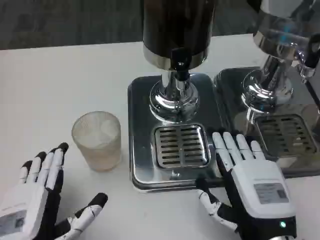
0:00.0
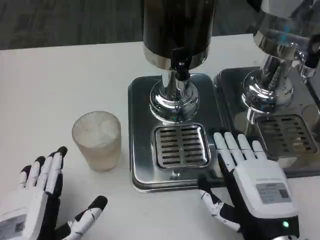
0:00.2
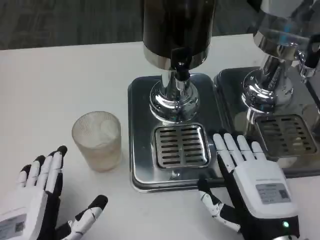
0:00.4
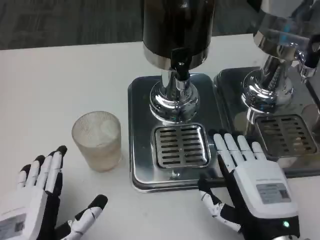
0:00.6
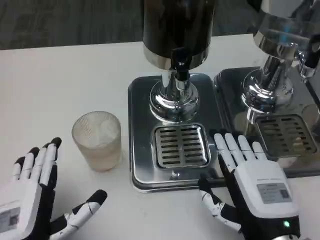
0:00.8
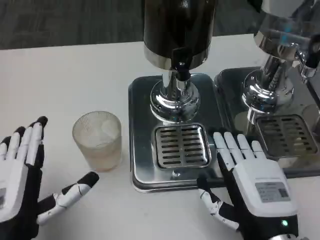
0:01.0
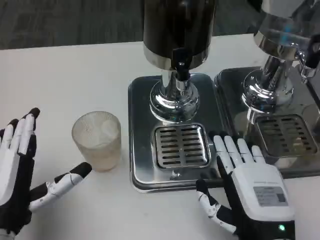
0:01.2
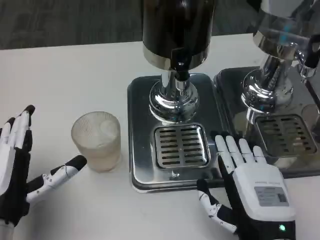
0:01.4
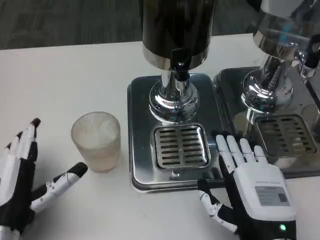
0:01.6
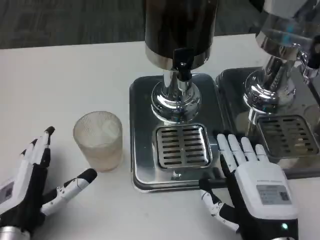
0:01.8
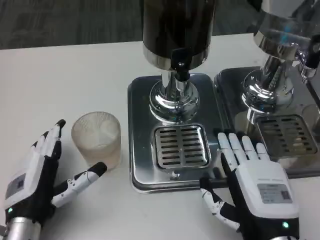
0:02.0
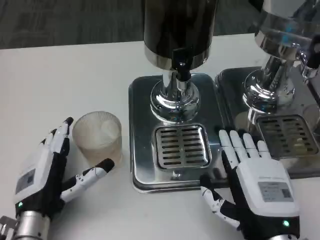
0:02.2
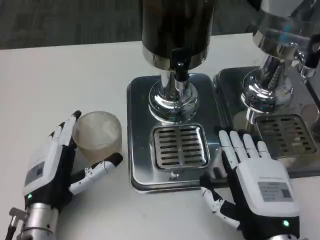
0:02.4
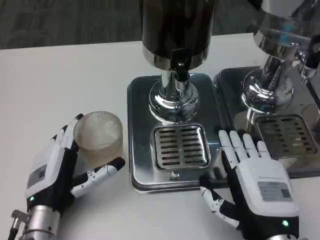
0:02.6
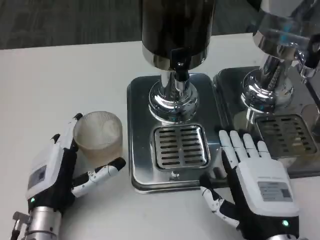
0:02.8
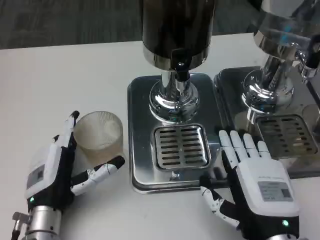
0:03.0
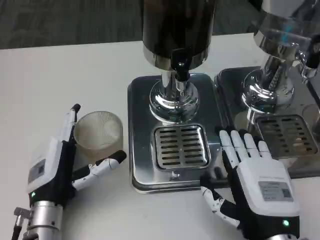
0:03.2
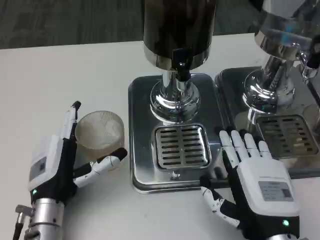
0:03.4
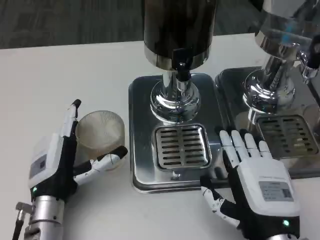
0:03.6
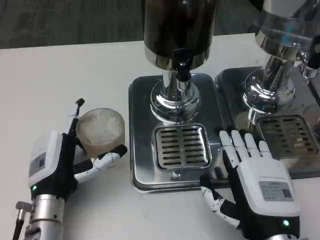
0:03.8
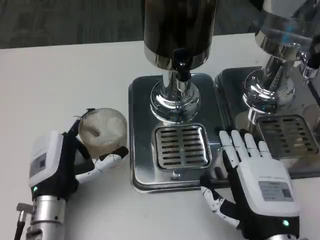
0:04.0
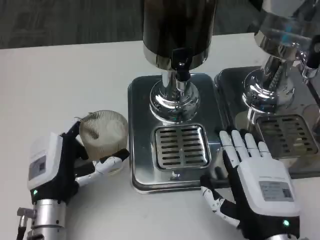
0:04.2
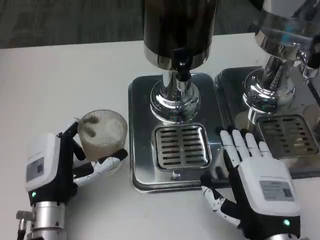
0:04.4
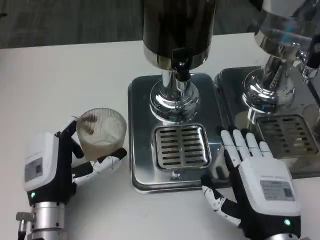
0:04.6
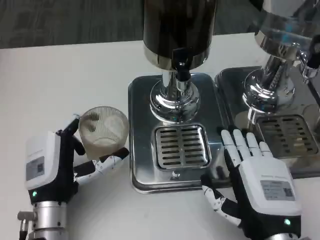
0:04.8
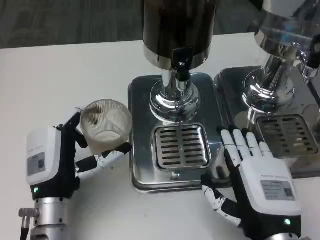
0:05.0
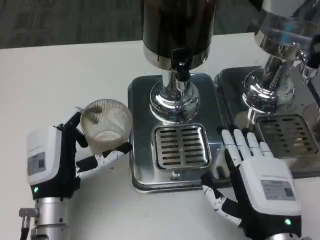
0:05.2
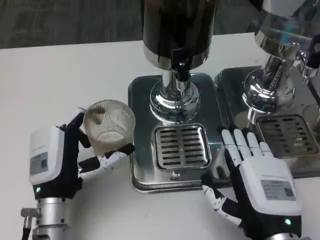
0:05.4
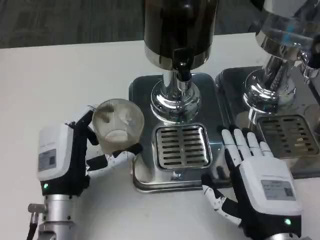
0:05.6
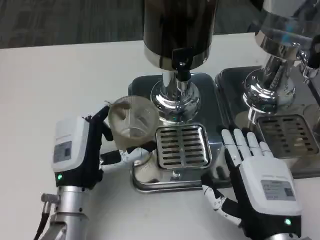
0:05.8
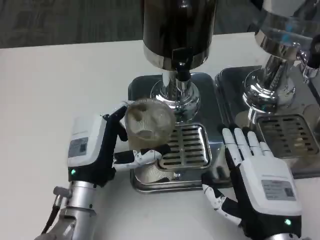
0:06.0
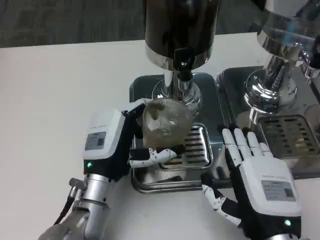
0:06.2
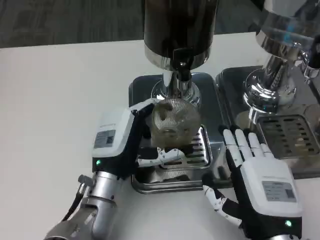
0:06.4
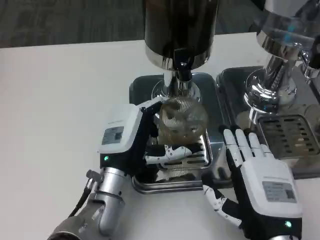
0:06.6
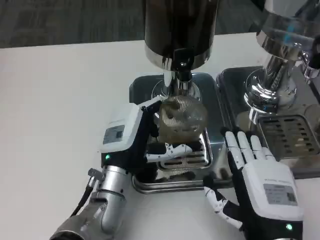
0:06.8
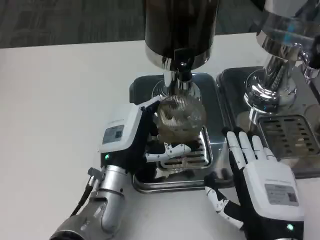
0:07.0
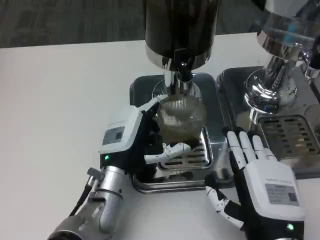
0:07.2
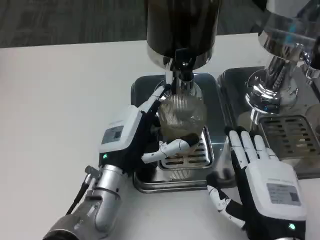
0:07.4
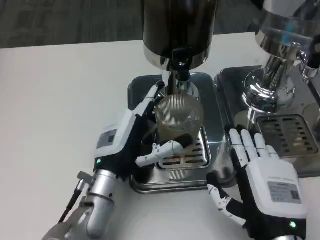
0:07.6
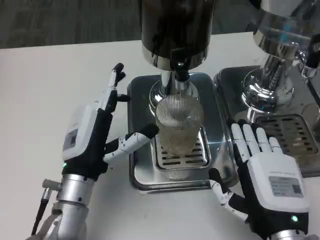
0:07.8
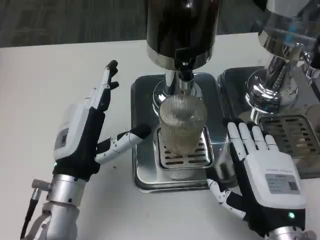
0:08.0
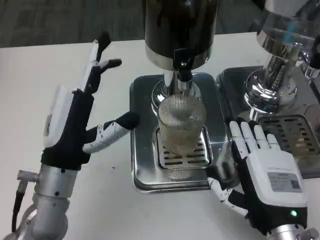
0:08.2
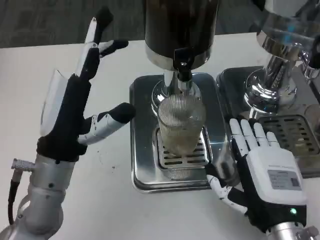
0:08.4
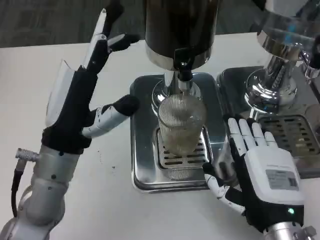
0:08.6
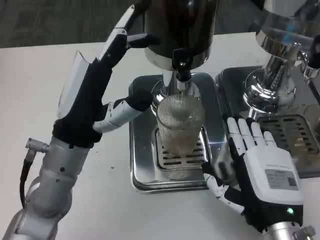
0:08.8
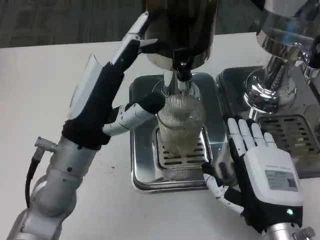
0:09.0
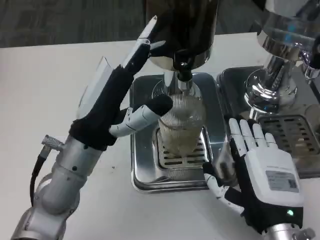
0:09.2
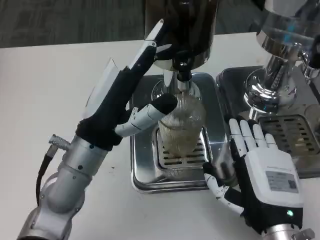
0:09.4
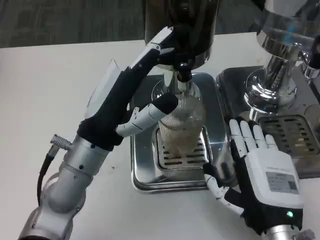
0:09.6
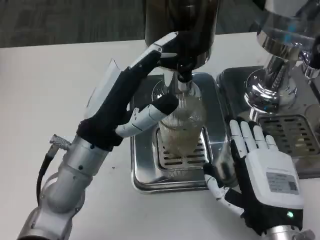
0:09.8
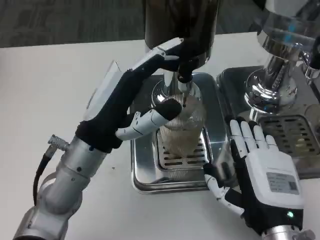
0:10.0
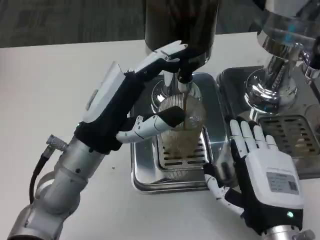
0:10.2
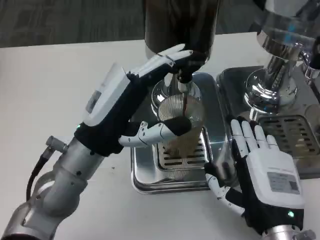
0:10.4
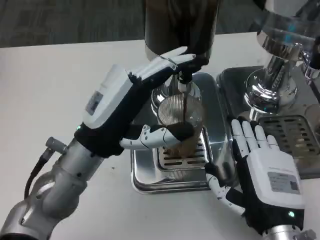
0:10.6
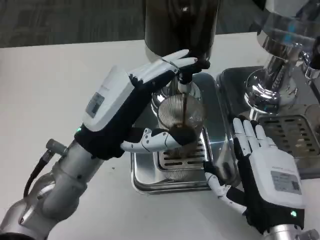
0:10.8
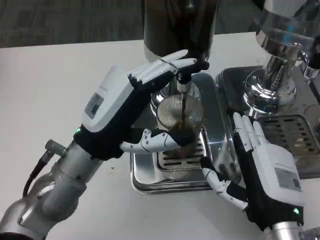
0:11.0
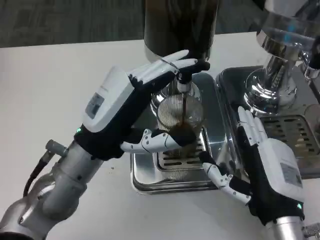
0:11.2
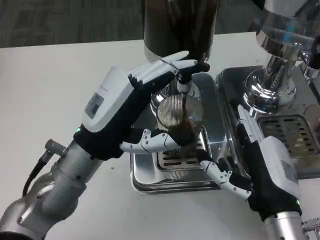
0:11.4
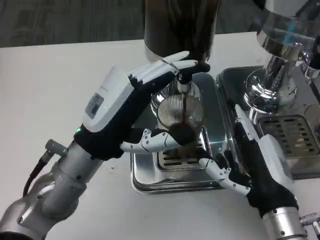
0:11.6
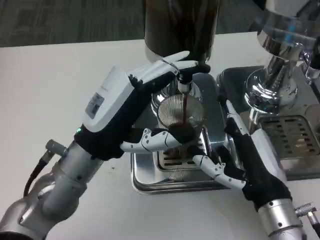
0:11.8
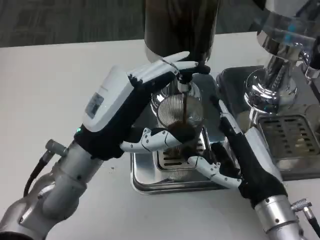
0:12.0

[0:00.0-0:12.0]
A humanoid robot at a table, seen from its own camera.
Task of the whole recording: Grasp the cup under the faucet to collect the drink, then remove the cup.
0:00.0 to 0:01.6: The left hand shifts approximately 5 cm forward.
0:01.6 to 0:03.0: The left hand changes place by some 5 cm.
0:03.0 to 0:04.4: The hands stay close to where they were, moving slightly.
0:04.4 to 0:06.0: The left hand changes place by some 5 cm.
0:06.0 to 0:07.6: There are only small adjustments of the hands.
0:07.6 to 0:09.0: The left hand shifts approximately 10 cm upward.
0:10.4 to 0:12.0: The right hand moves about 5 cm.

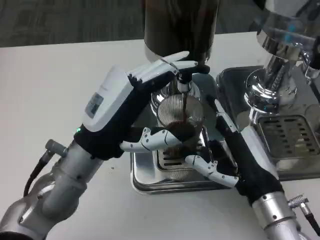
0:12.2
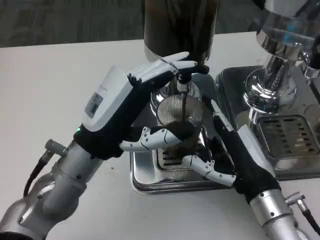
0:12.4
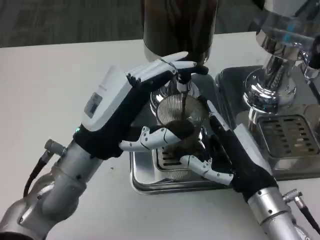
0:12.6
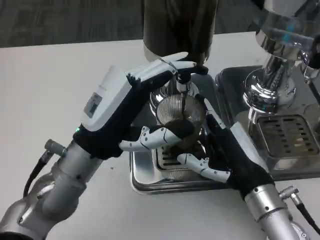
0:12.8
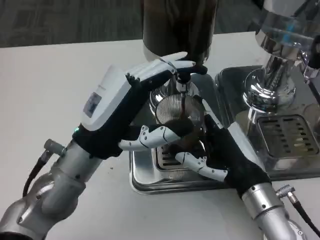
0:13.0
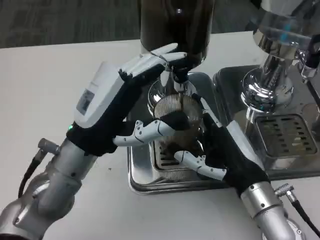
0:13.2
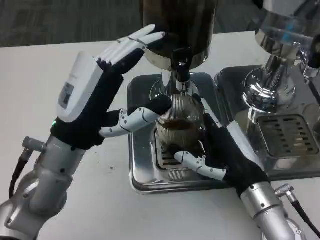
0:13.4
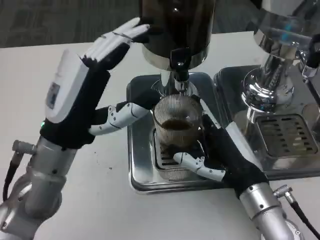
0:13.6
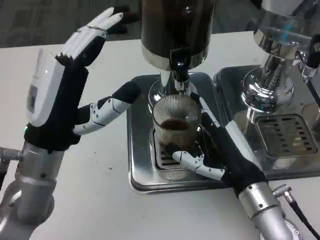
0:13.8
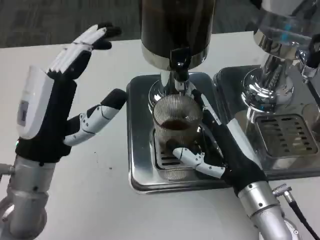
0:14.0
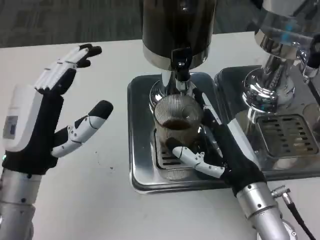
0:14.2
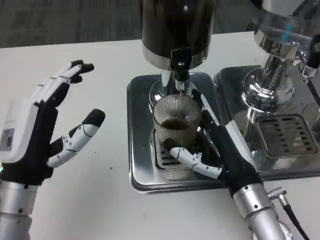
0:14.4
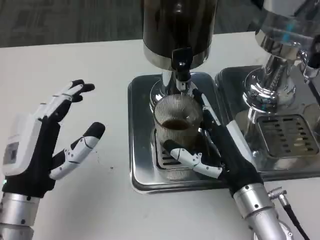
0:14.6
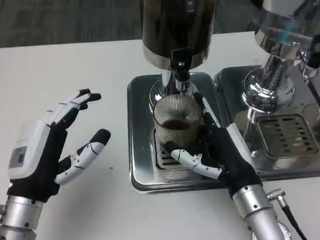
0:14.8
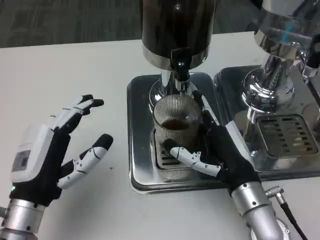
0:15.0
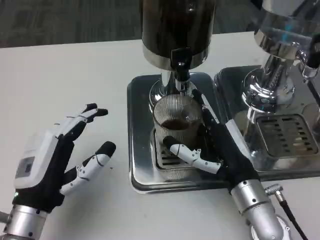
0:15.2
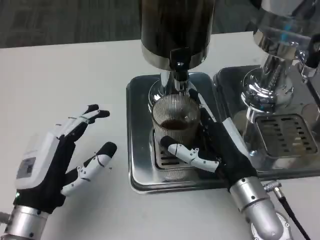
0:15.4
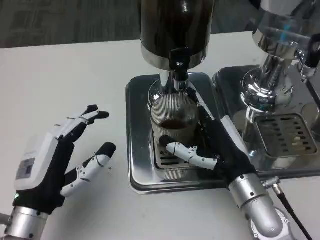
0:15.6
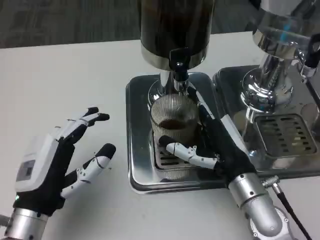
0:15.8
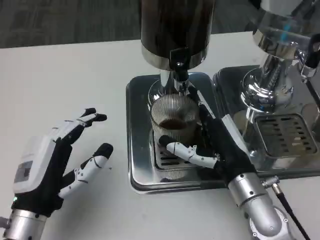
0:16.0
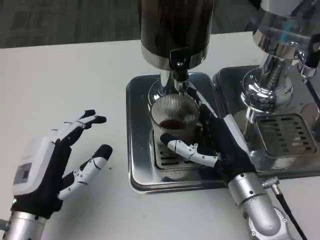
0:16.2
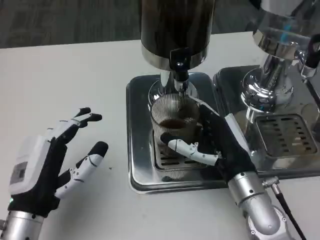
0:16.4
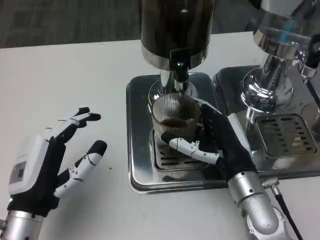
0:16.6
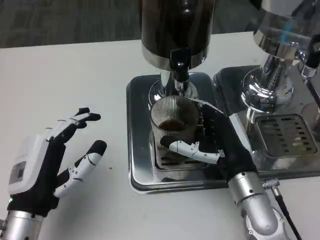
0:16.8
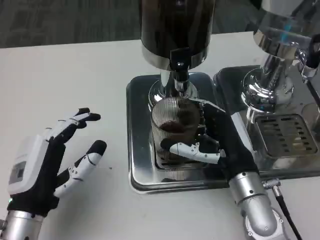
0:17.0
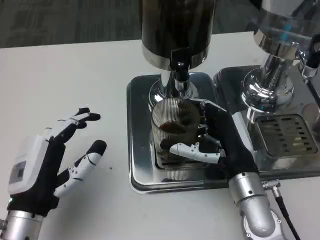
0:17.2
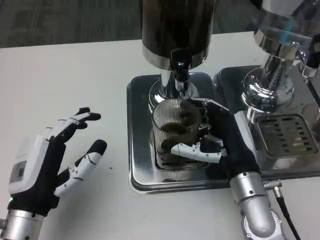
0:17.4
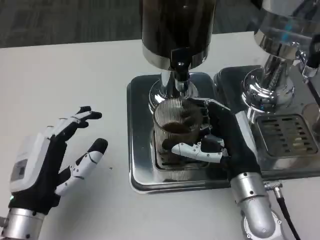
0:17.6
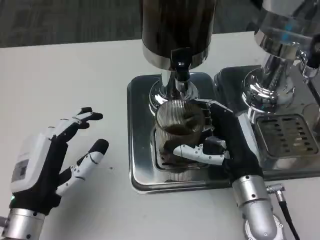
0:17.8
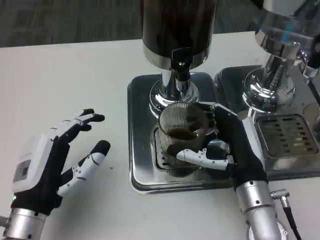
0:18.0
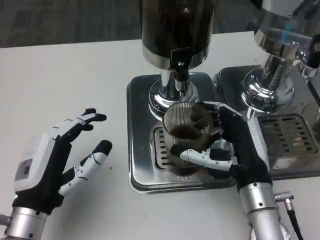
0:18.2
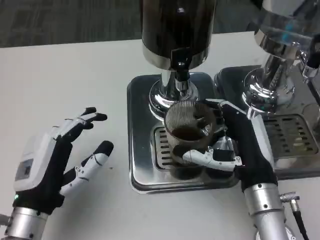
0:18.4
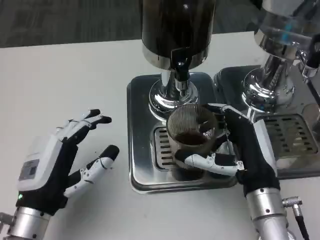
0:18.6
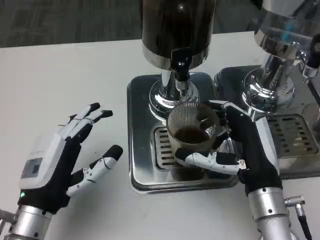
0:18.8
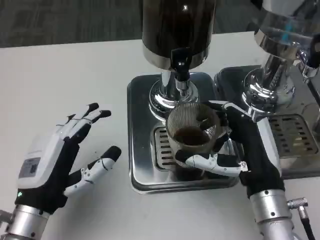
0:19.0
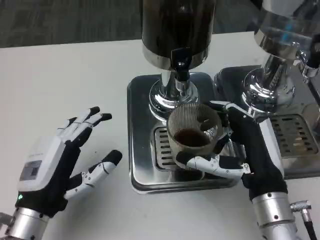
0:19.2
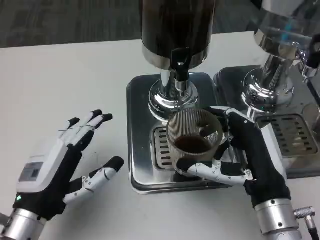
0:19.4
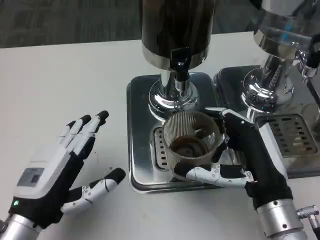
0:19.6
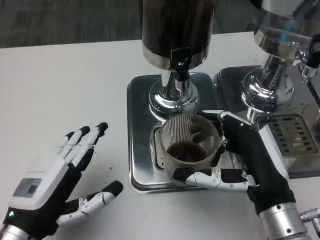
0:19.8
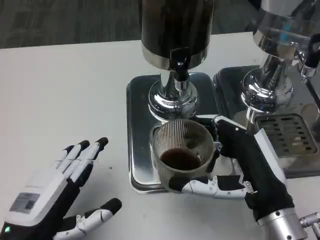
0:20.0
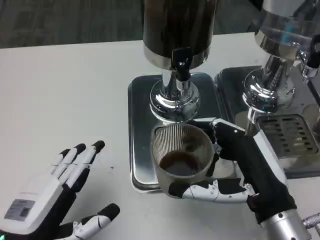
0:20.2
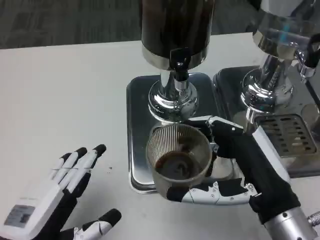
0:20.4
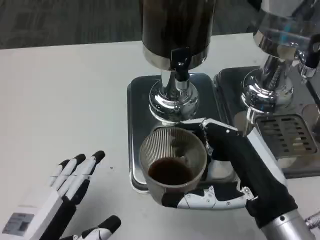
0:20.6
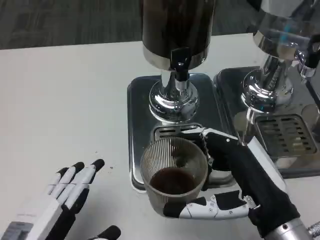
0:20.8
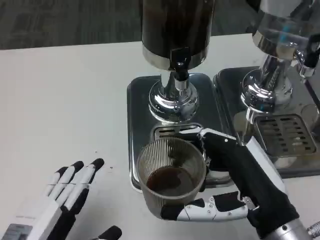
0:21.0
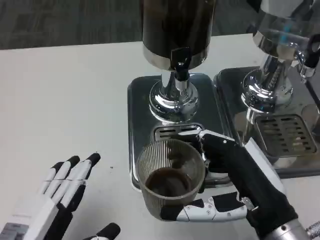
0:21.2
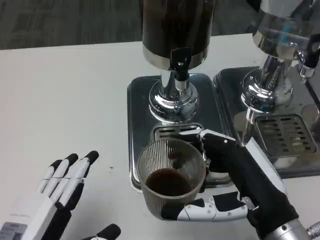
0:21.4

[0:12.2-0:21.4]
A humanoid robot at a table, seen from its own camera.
Task of the whole recording: Grasp the cup under the faucet to collect the drink, then remove the cup.
0:13.8 to 0:15.2: The left hand goes about 10 cm downward and backward.
0:15.2 to 0:18.4: The hands move only a little.
0:18.4 to 0:19.8: The right hand ends up about 5 cm from where it was.
0:19.8 to 0:21.4: The left hand heads backward, covering approximately 5 cm.

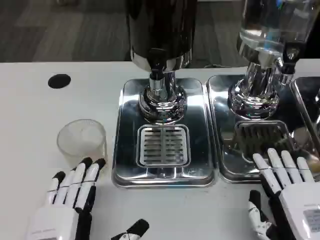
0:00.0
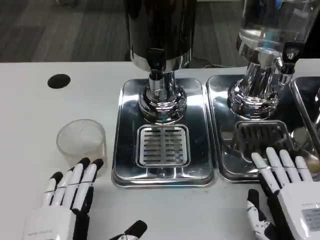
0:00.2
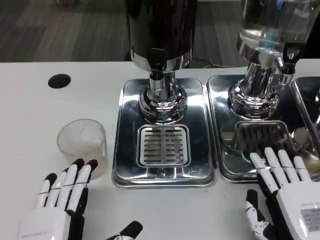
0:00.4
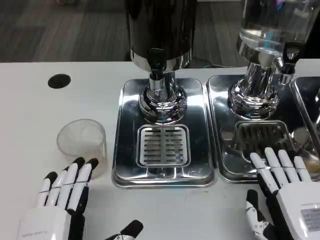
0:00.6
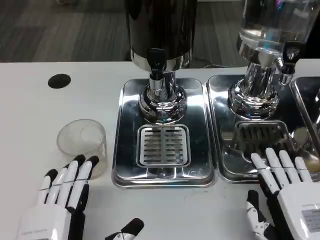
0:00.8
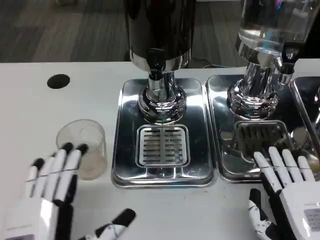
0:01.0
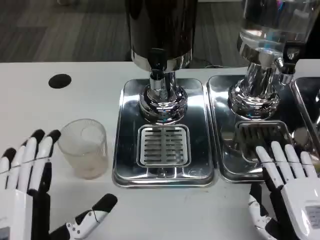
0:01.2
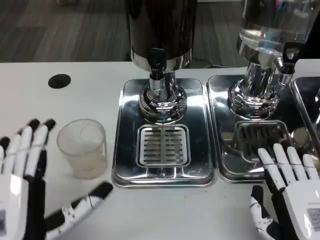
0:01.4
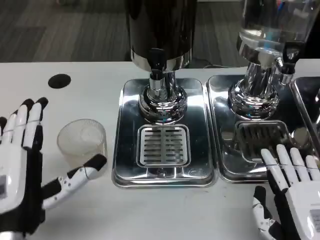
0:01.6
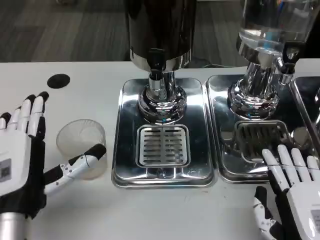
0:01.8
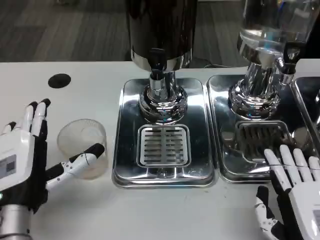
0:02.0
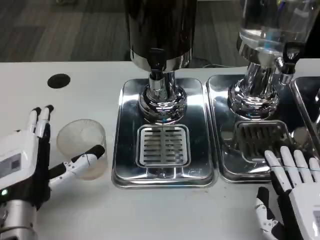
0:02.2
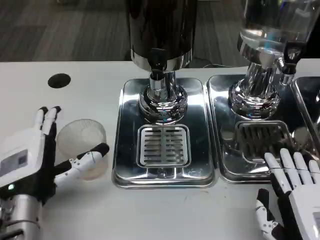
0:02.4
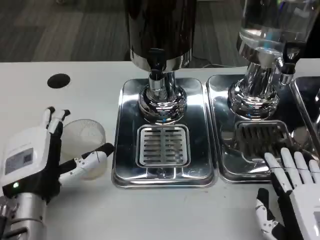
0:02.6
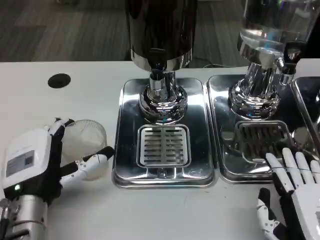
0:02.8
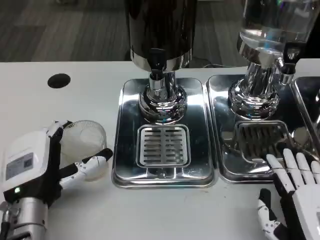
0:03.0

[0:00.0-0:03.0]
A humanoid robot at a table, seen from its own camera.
Task of the whole recording: Grasp the cup under the faucet to collect the drink, then remove the cup.
0:00.0 to 0:01.6: The left hand heads forward and upward, covering roughly 10 cm.
0:01.6 to 0:03.0: The left hand goes about 5 cm forward.
